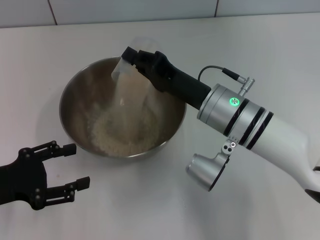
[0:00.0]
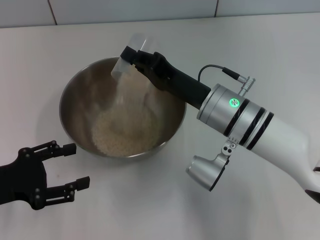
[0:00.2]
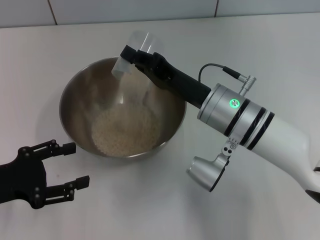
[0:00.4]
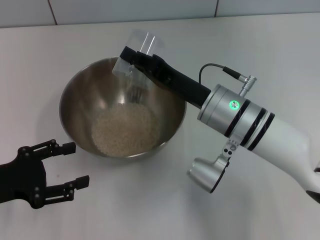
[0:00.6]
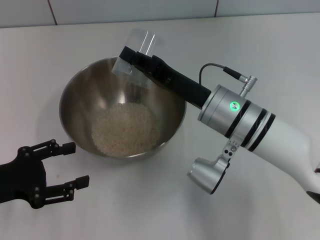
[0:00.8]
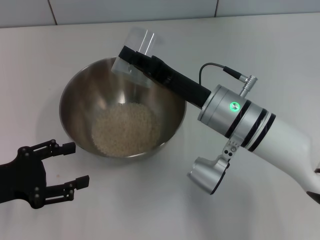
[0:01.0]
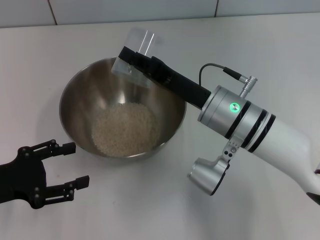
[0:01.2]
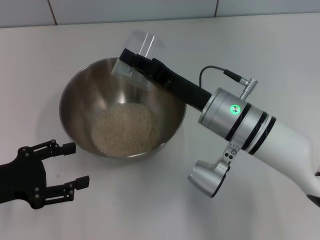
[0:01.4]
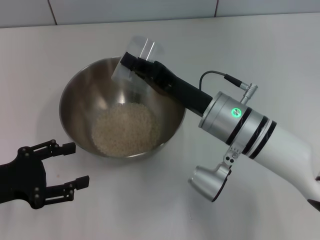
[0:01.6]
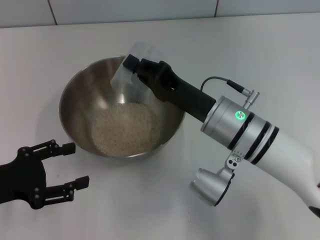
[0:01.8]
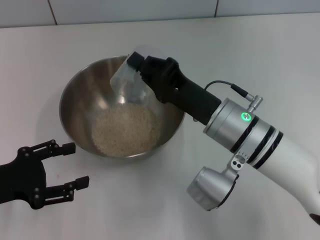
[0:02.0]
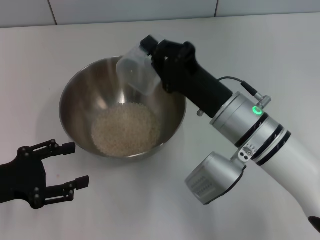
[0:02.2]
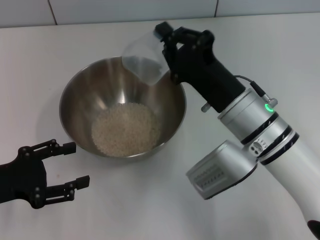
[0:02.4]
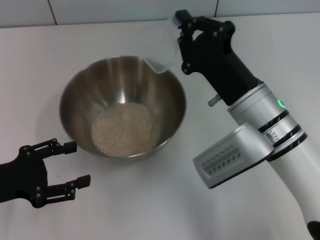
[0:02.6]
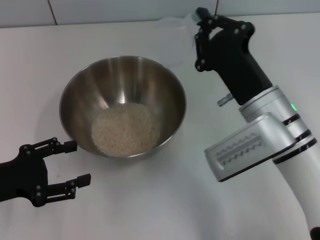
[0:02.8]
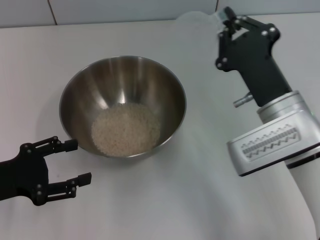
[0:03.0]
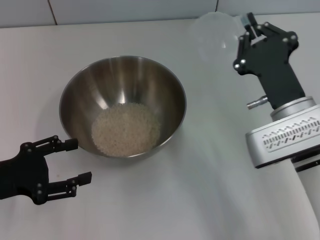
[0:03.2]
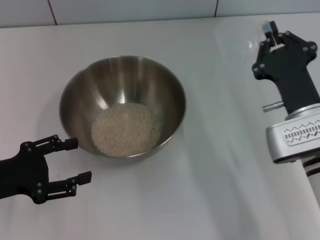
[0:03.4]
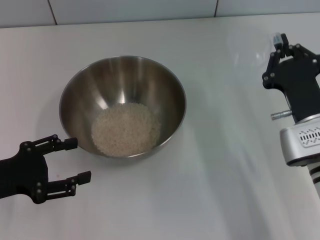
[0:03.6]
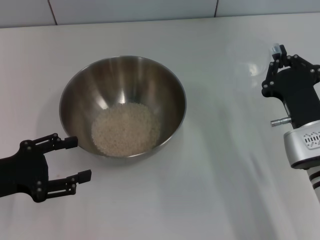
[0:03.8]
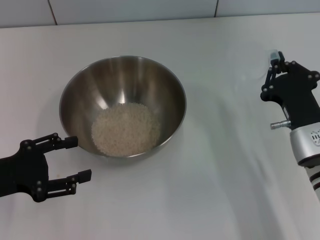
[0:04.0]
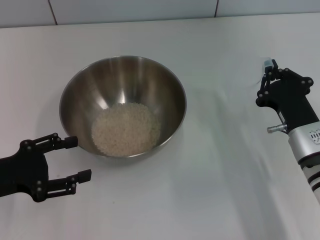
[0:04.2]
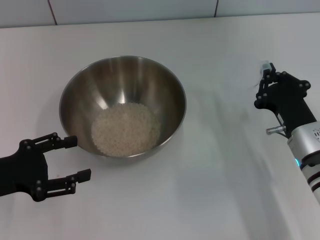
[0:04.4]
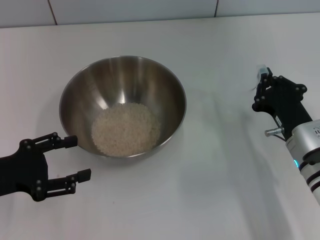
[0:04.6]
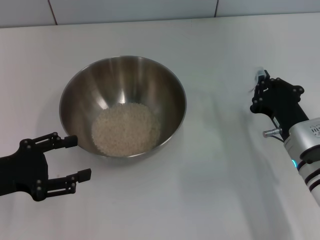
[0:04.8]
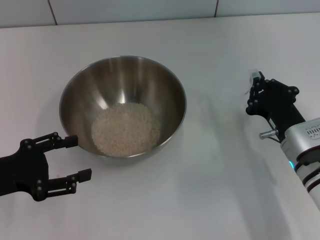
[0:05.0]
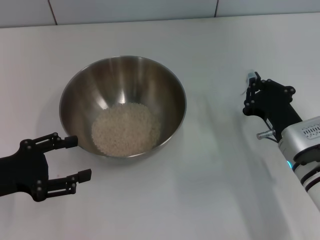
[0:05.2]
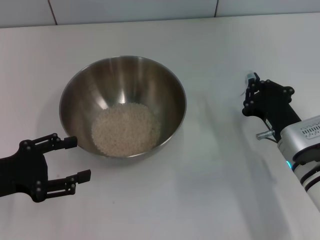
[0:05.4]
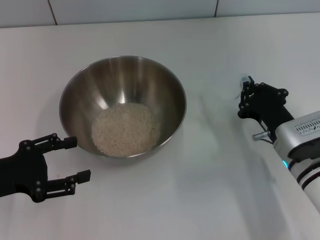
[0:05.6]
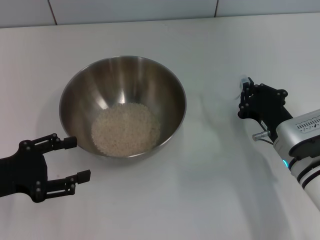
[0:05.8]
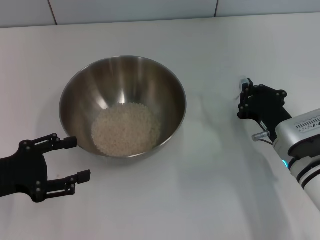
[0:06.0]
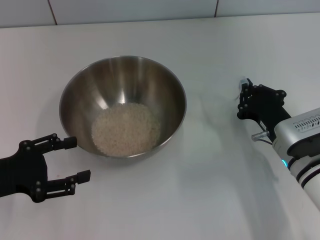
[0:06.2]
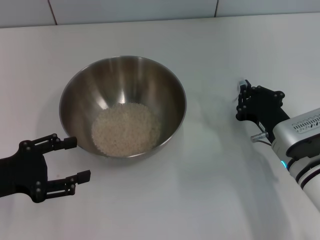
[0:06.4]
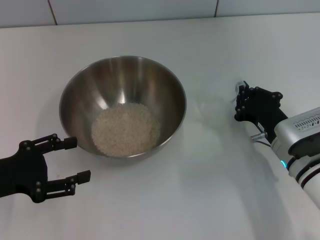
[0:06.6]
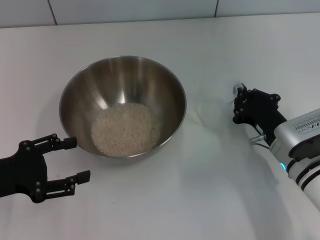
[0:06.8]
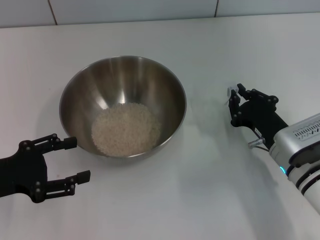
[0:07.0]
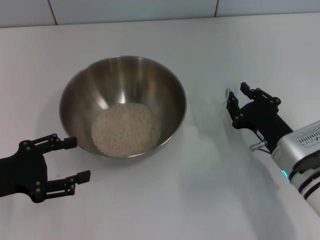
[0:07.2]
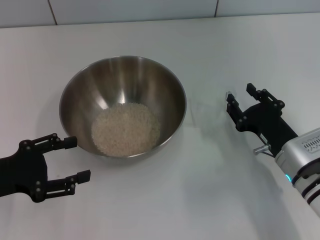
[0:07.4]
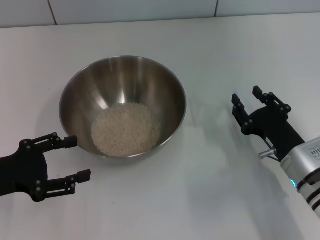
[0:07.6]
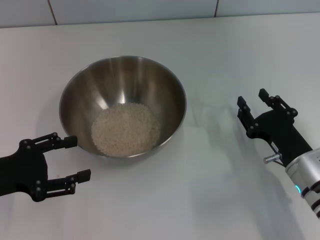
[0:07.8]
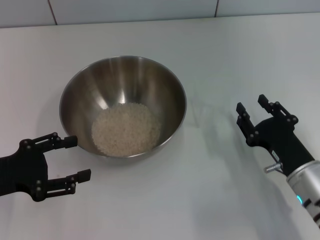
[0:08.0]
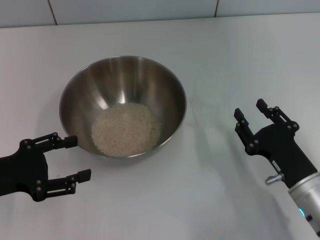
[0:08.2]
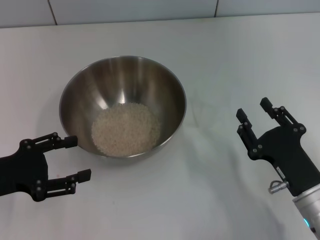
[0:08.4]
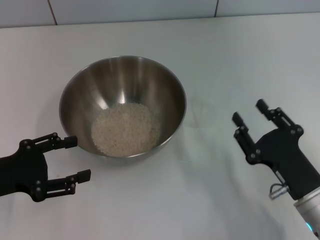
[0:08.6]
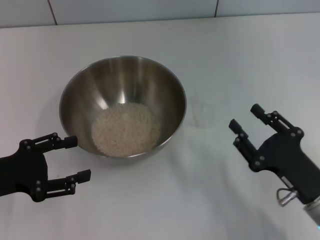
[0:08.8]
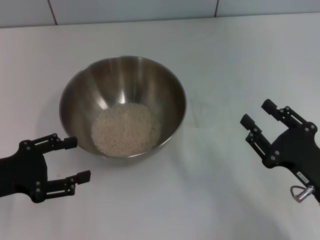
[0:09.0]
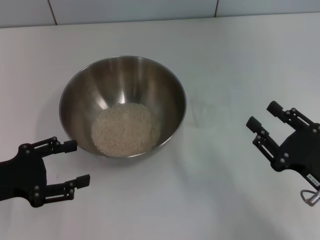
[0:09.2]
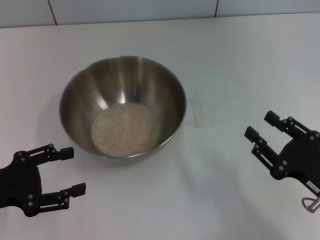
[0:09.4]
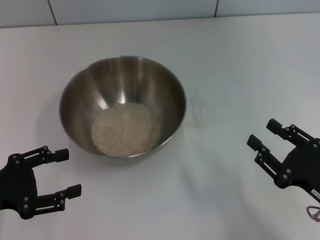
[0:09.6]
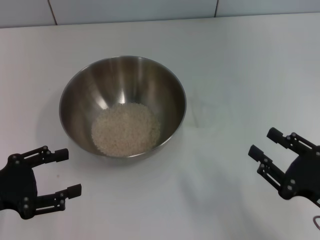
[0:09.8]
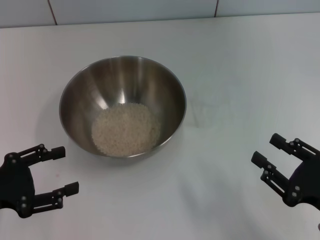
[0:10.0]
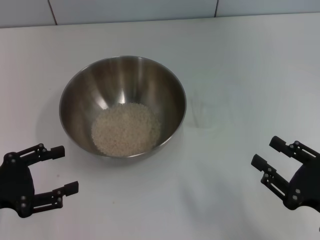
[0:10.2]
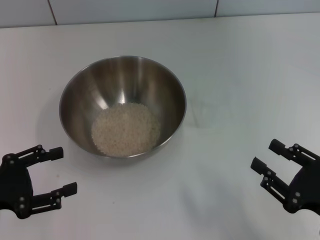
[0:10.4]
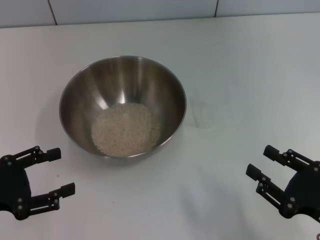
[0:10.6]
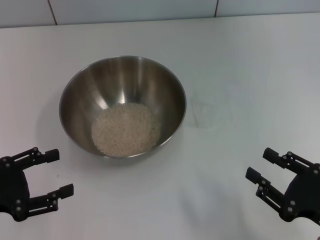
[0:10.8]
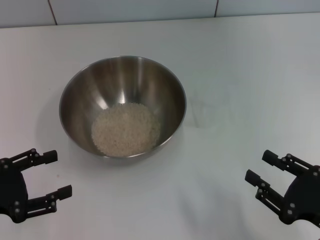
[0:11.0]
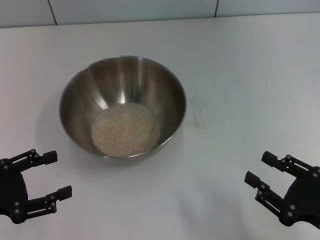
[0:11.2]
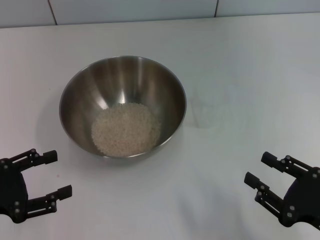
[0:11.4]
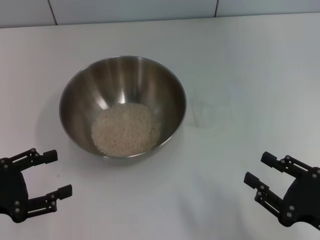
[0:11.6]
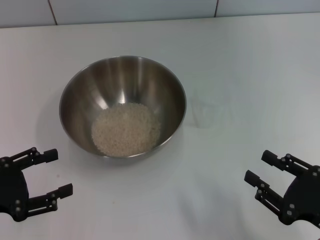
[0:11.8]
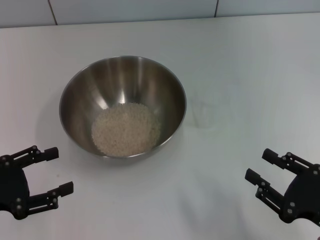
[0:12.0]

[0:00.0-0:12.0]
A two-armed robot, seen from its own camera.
Task of the whole recording: Place the bowl in the middle of the table with one hand and pour the rice from the grain cup into it with the other hand.
Step, 0:00.0 to 0:03.0: Pour the rice from the cup into the bowl with the right gripper.
Step, 0:03.4 to 0:08.2: Place the cup on the table with the right gripper.
0:00.0 to 0:01.6: The grippers stay close to where they were, moving slightly.
0:01.6 to 0:03.0: The right gripper goes some 5 cm to the right.
0:03.0 to 0:04.4: The right gripper shifts some 10 cm downward and to the right.
0:04.4 to 0:06.0: There are only small adjustments of the grippers.
0:06.0 to 0:07.6: The right gripper opens.
0:07.6 to 0:09.0: The right gripper travels backward by roughly 5 cm.
0:09.0 to 0:10.4: The right gripper shifts by some 5 cm.
0:10.4 to 0:12.0: Both grippers stay put.

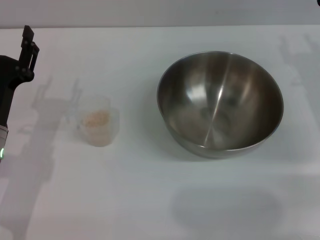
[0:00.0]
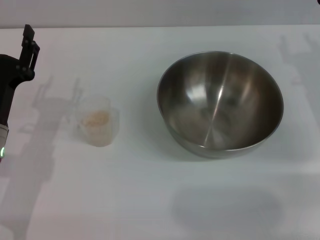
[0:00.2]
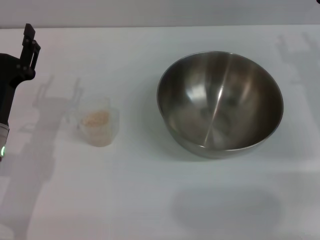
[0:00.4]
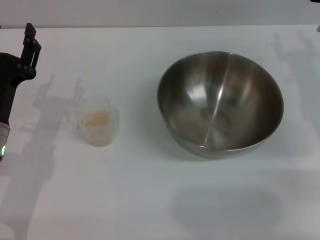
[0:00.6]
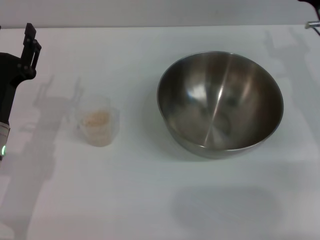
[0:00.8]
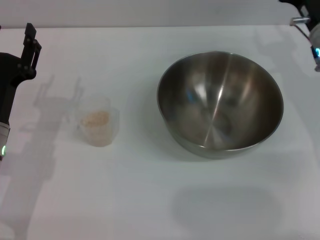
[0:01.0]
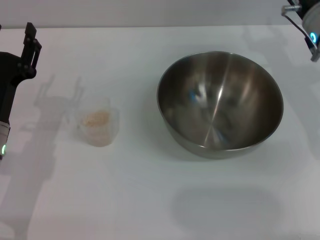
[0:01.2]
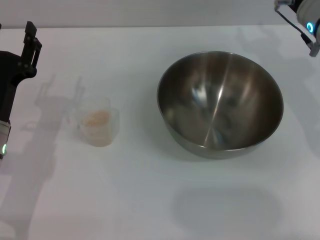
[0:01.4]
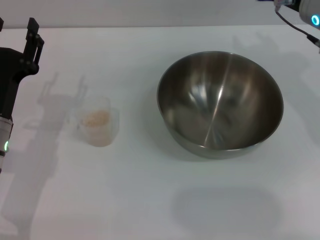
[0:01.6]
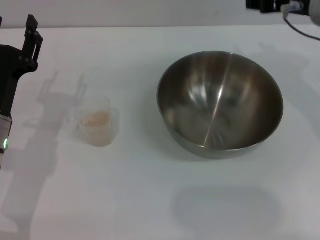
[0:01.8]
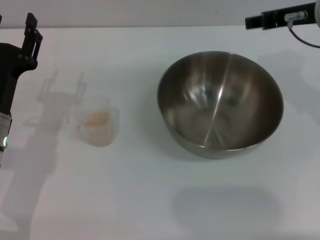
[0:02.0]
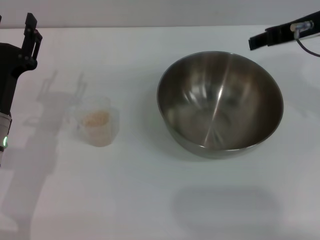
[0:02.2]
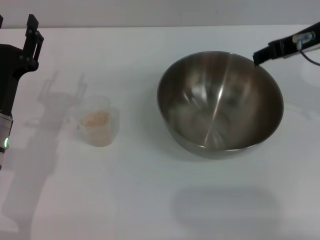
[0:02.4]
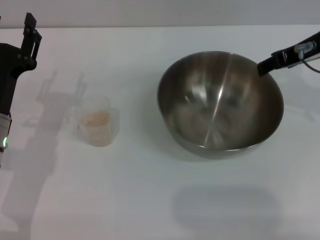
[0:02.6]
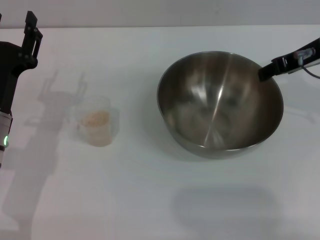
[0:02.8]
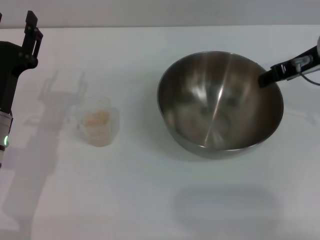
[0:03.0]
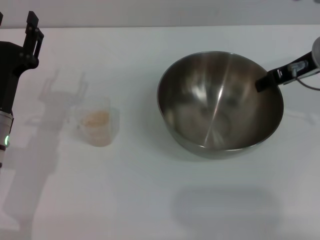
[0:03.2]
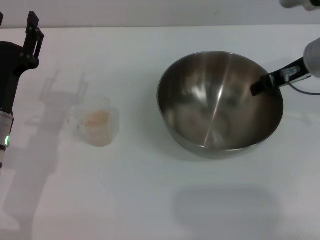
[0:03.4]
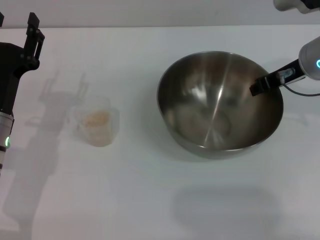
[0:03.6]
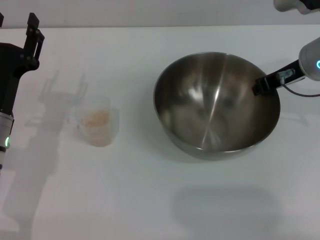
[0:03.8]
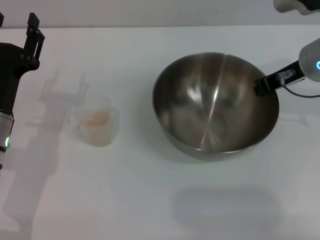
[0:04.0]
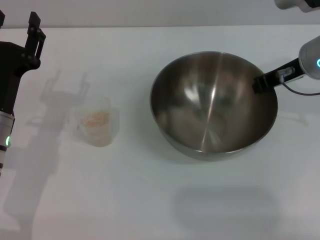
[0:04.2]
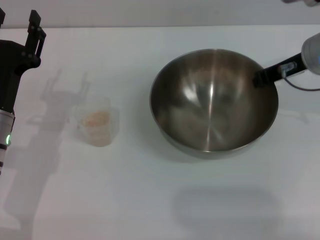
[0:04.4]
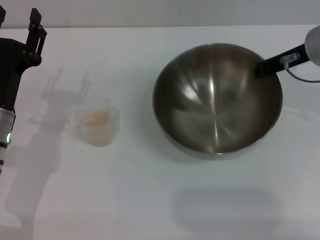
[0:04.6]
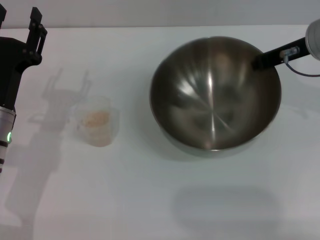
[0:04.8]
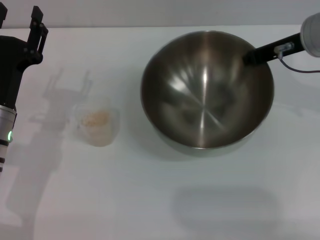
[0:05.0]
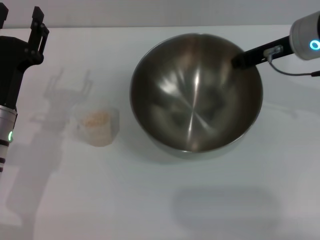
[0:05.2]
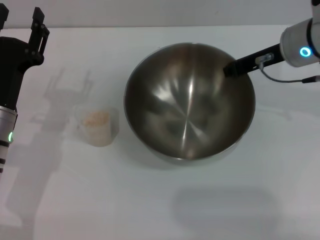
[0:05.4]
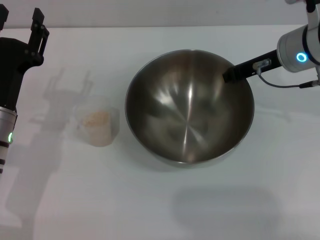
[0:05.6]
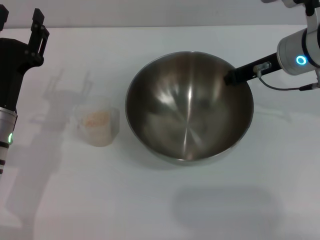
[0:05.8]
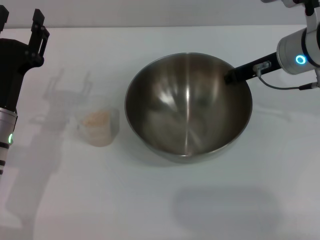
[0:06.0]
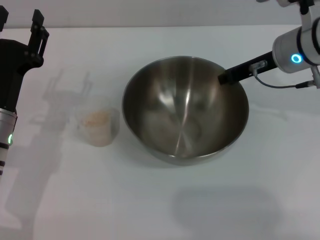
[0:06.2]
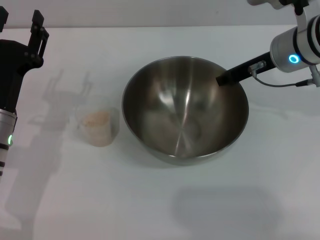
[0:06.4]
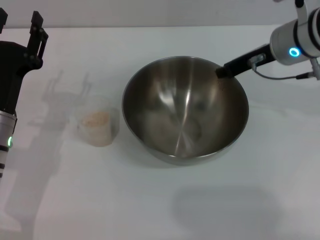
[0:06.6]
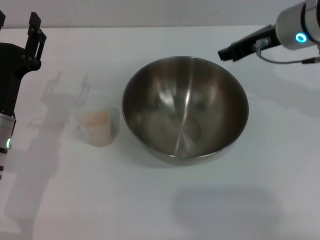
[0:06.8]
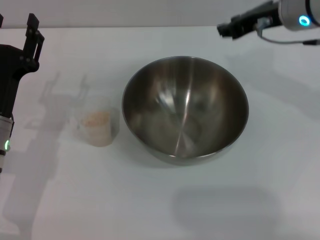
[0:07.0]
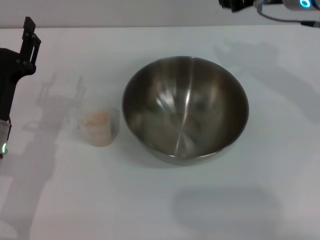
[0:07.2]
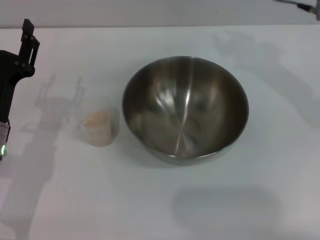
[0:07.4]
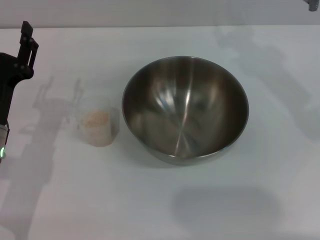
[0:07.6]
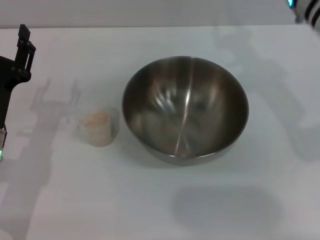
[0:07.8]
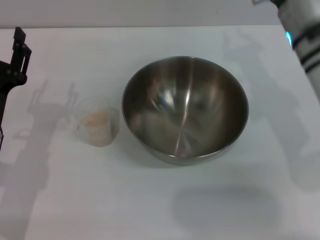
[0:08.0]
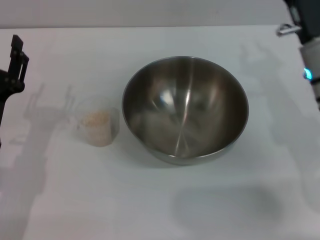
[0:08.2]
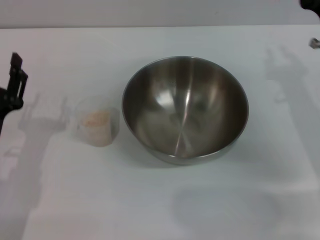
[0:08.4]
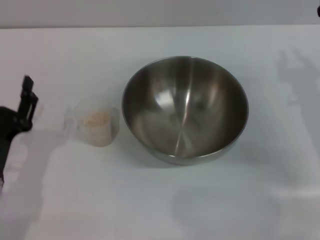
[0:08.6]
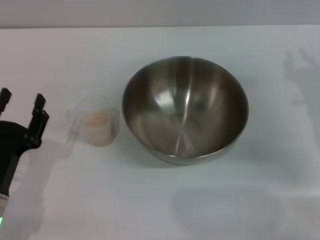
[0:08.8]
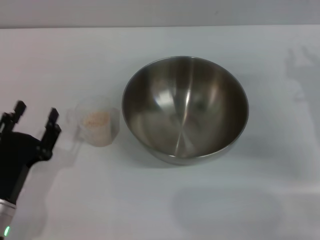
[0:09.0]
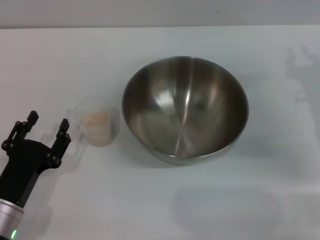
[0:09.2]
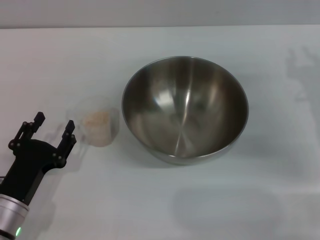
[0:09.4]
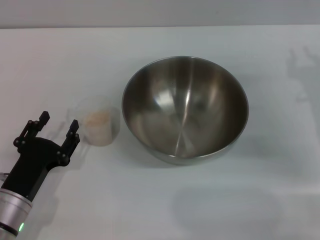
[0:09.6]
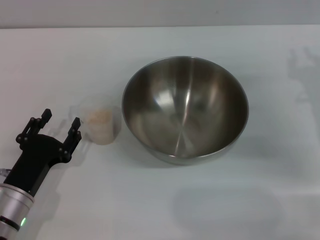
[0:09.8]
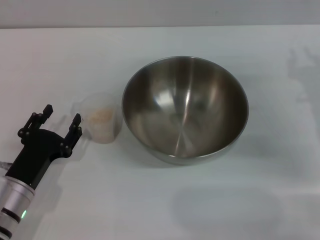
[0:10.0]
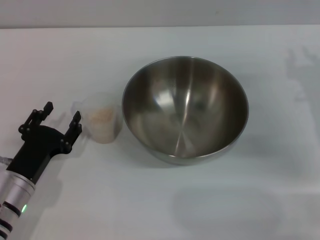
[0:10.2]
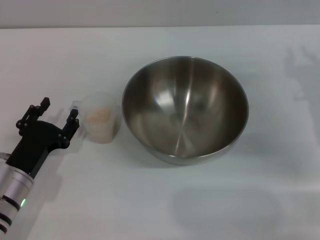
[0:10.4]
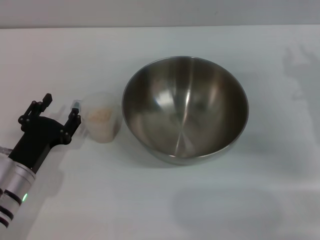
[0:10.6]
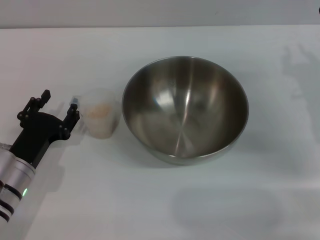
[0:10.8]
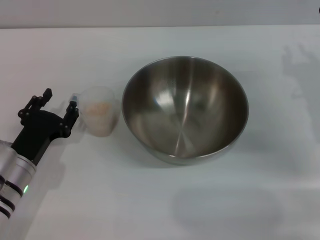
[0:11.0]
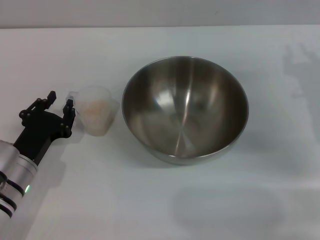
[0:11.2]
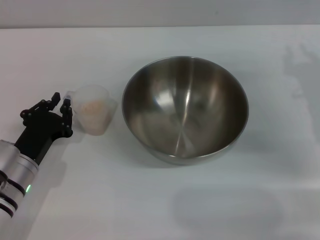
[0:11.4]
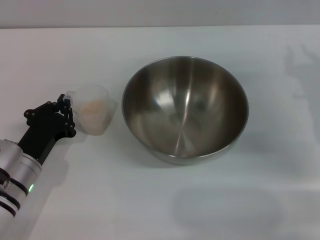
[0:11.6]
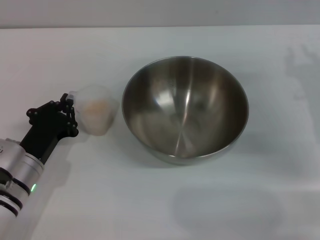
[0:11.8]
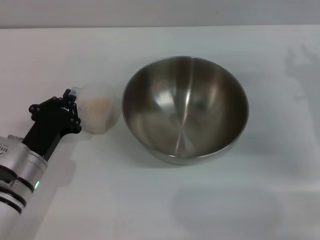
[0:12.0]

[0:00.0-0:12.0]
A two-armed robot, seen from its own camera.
Task of the whole recording: Place the bowl in the middle of the table with one hand and pour the rice from the grain cup into it with the other hand.
Step, 0:00.0 to 0:04.6: Pick up the bowl with the right gripper.
Step, 0:05.0 to 0:06.8: Place the bowl in the center of view with the right gripper.
0:00.0 to 0:01.6: The right gripper travels upward and to the left by roughly 10 cm.
0:03.0 to 0:04.4: The right gripper closes up.
0:04.4 to 0:06.0: The grippers move only a little.
0:06.0 to 0:07.6: The right gripper heads upward, covering roughly 5 cm, and opens.
0:07.6 to 0:09.0: The left gripper heads backward and downward, covering some 10 cm, while the right gripper heads downward, to the right and backward, covering approximately 20 cm.
0:09.0 to 0:10.4: The left gripper heads forward, covering roughly 5 cm.
0:10.4 to 0:12.0: The left gripper closes.
